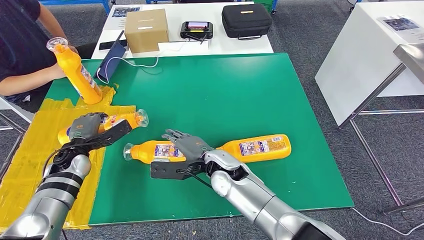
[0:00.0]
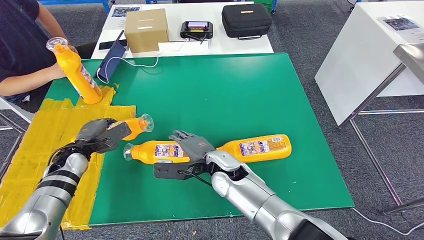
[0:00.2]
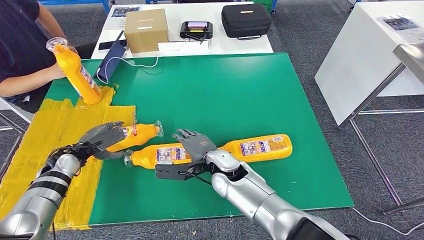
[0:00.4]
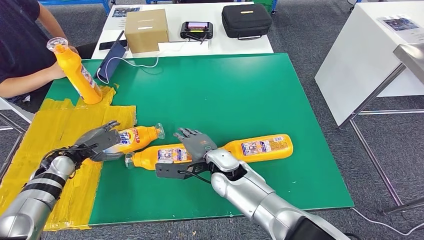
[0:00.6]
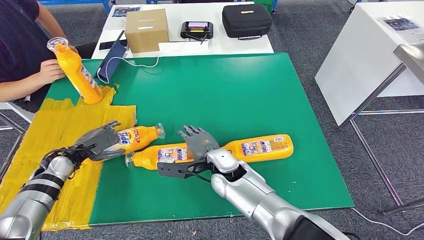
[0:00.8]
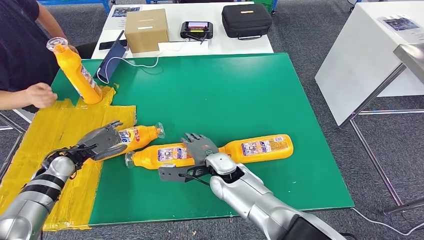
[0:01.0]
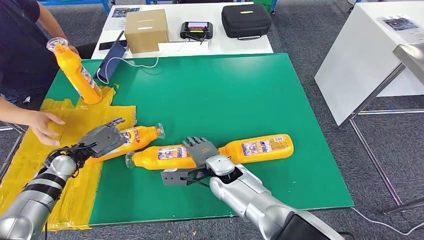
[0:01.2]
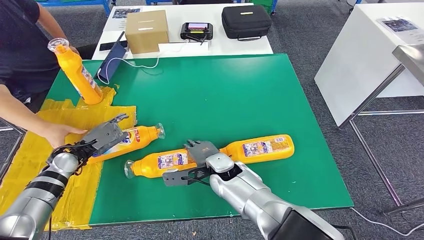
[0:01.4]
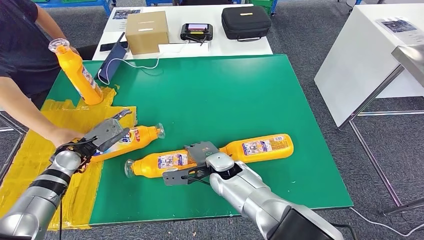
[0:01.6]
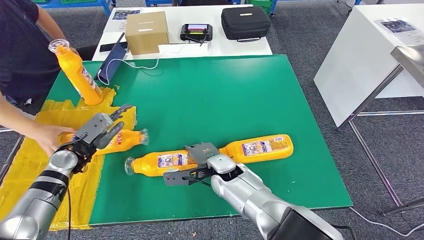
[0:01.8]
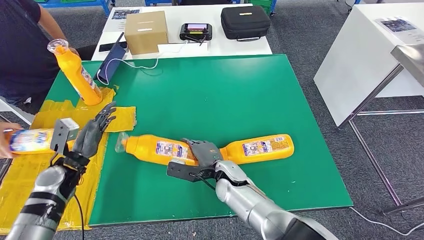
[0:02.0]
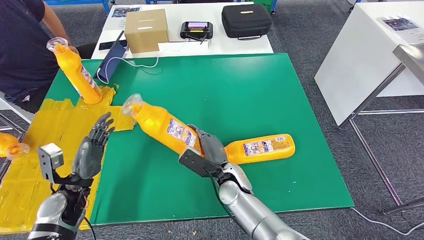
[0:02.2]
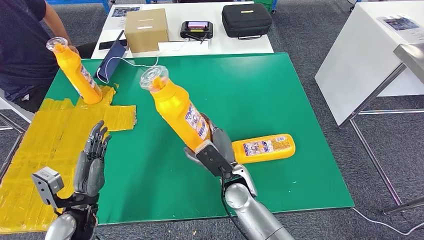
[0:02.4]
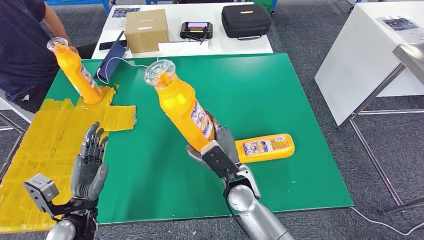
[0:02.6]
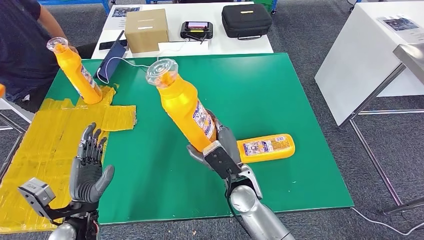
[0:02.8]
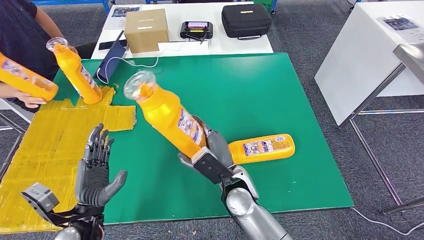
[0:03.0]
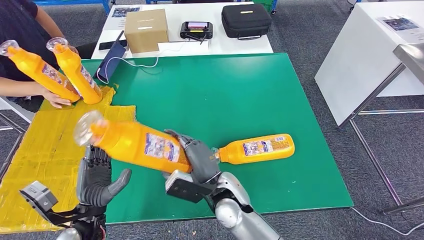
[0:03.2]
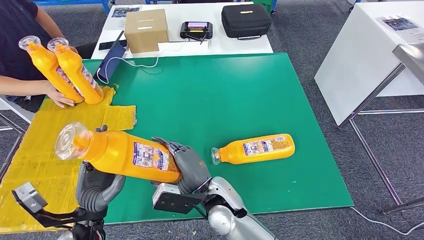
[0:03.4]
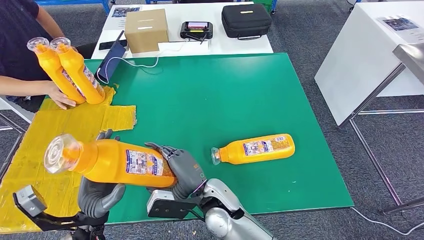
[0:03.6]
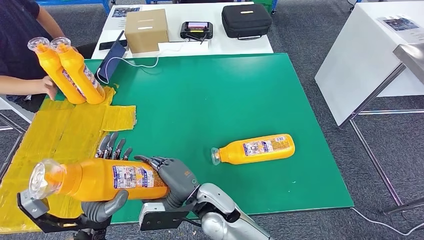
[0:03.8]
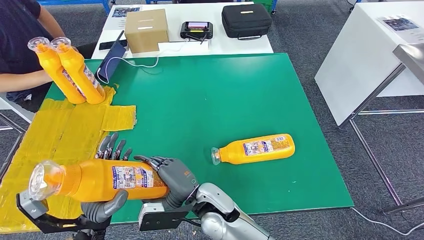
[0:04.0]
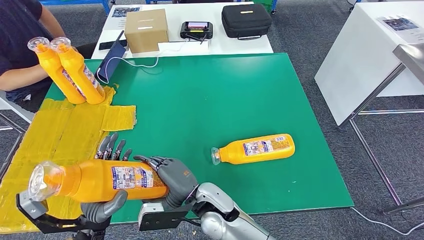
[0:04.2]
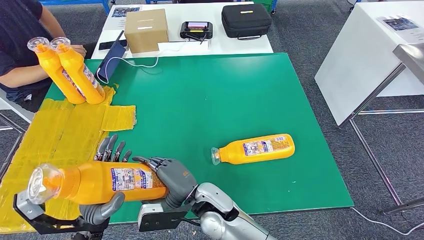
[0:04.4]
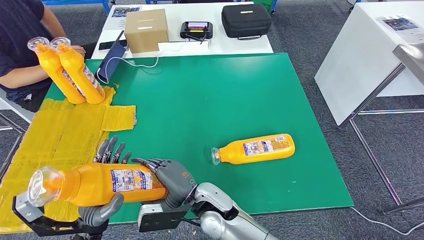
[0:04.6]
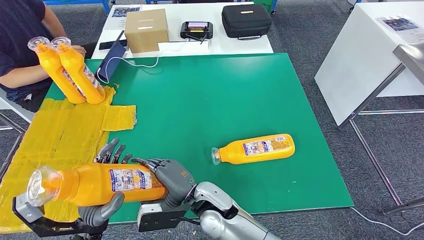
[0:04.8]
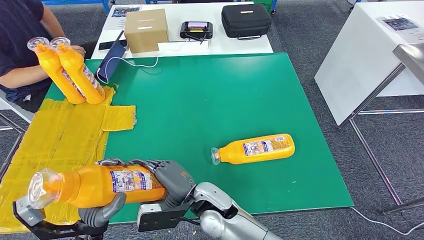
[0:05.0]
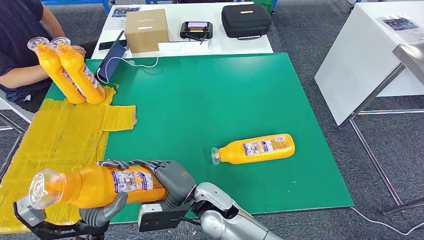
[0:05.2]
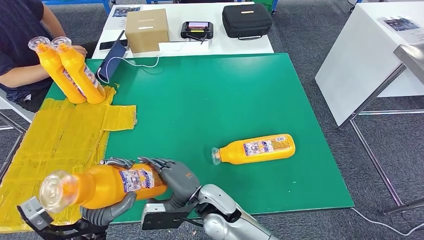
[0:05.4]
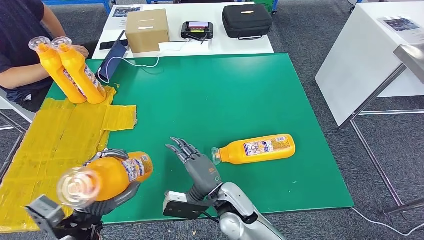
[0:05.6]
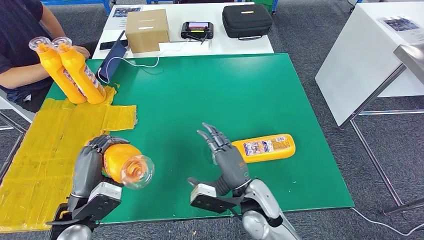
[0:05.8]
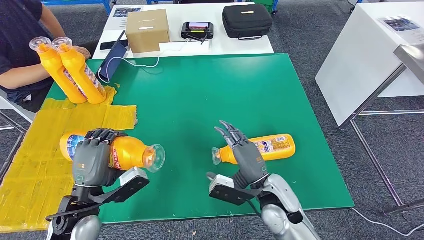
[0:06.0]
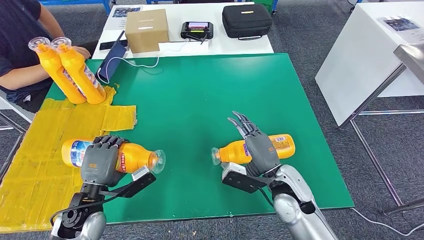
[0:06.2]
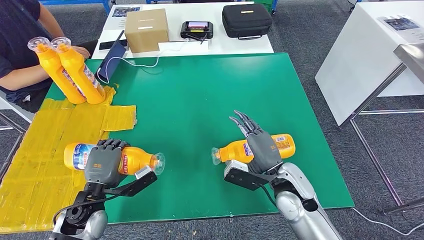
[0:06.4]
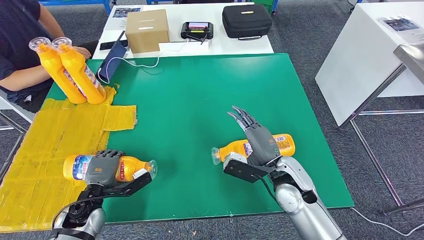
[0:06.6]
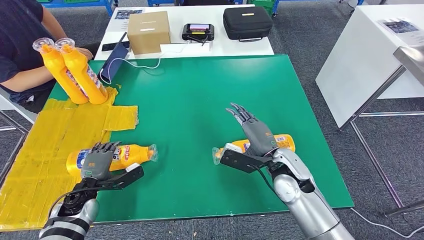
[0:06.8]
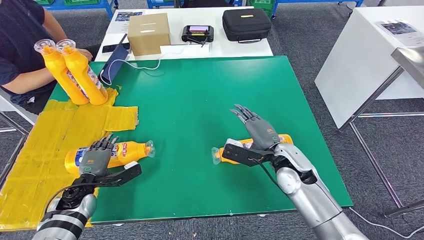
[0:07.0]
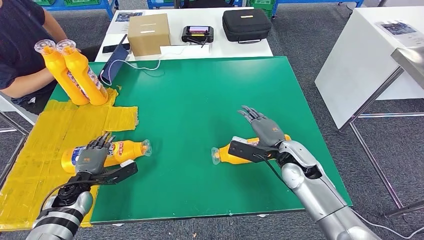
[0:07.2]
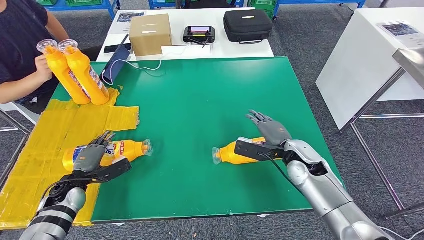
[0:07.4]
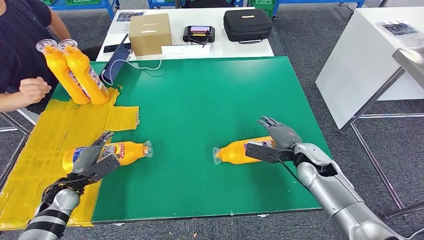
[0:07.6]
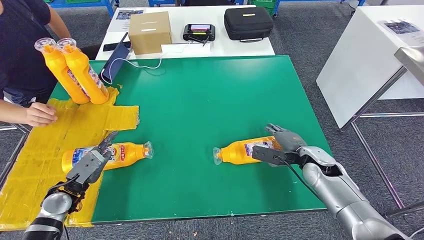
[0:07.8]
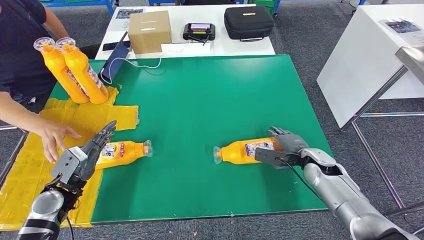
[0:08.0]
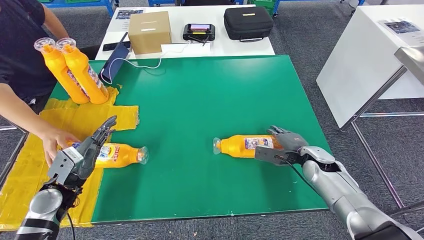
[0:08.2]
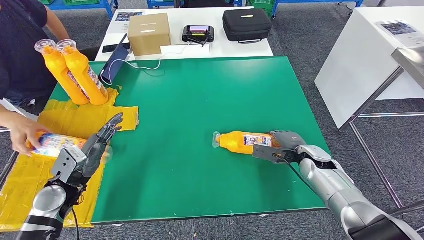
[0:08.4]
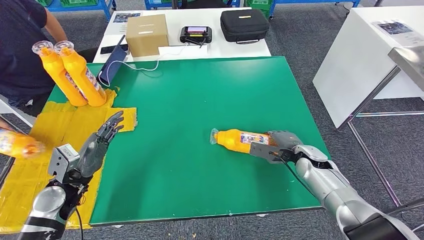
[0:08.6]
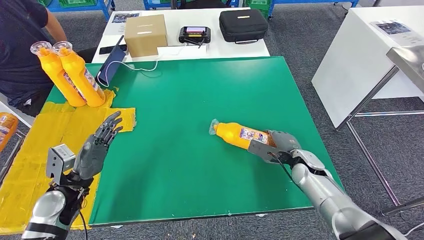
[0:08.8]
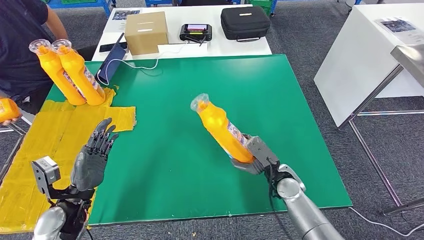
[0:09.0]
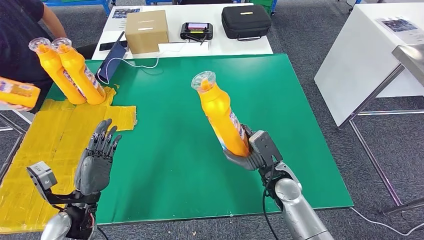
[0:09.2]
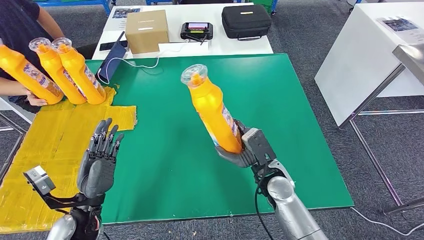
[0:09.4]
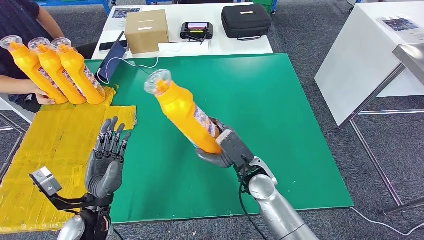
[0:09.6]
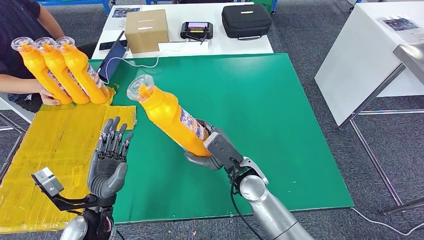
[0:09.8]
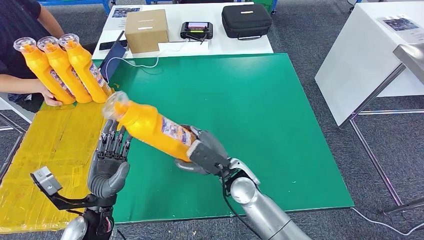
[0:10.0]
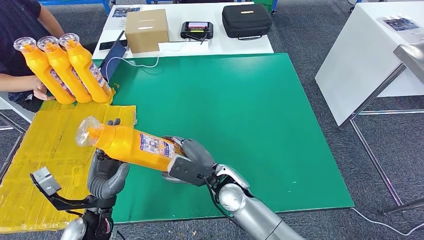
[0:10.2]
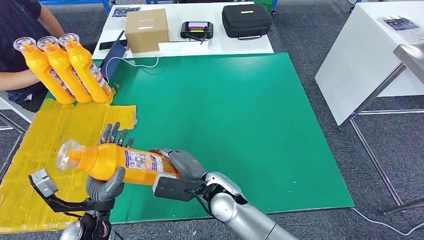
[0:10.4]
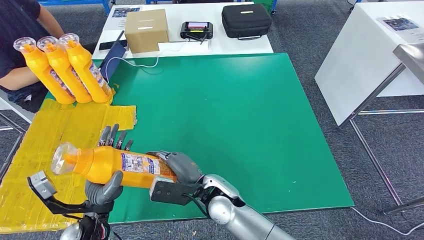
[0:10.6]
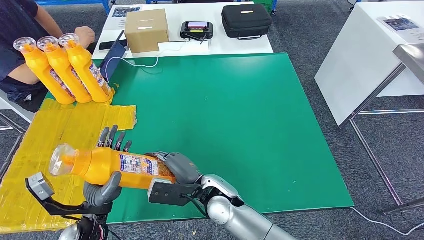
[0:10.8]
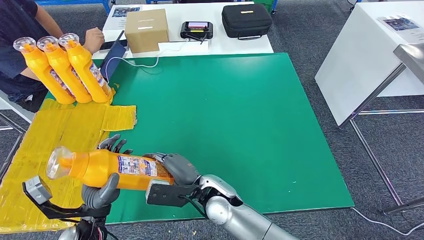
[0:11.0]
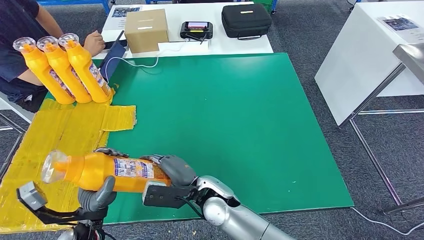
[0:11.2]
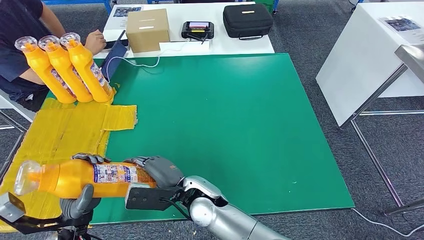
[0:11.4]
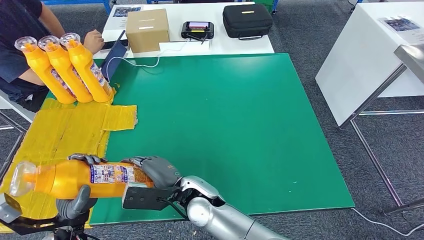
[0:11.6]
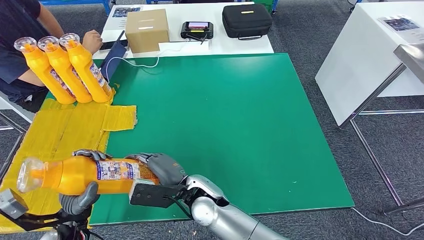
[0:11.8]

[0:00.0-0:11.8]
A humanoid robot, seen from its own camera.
Step, 0:01.8 to 0:03.2: Pick up the fast-moving consumer goods bottle from the table.
Step, 0:04.2 to 0:07.8: Flip the fast-moving consumer goods bottle to the front side.
Step, 0:08.0 to 0:09.8: Pick up the fast-moving consumer goods bottle from the table.
0:10.4 to 0:11.8: The left hand goes some 5 cm to the left.

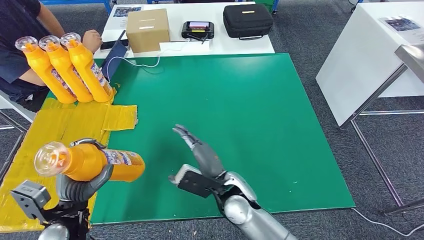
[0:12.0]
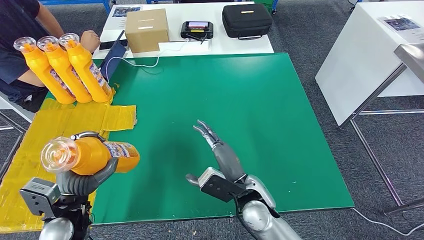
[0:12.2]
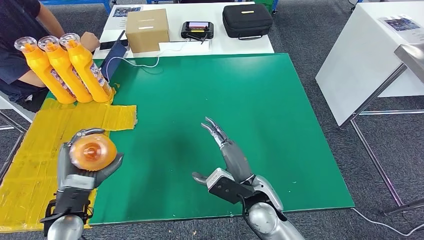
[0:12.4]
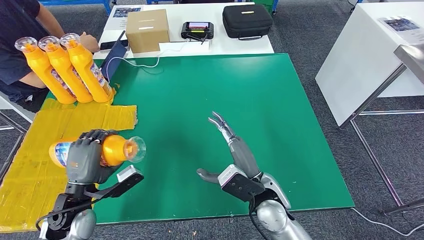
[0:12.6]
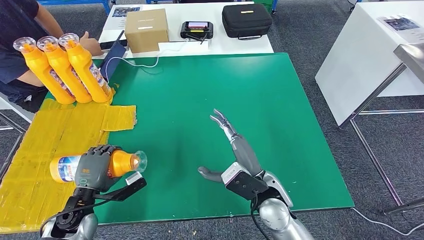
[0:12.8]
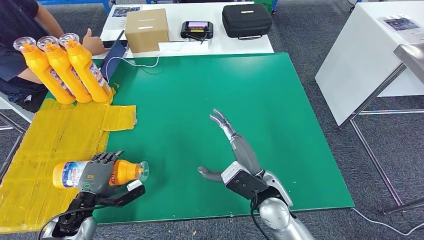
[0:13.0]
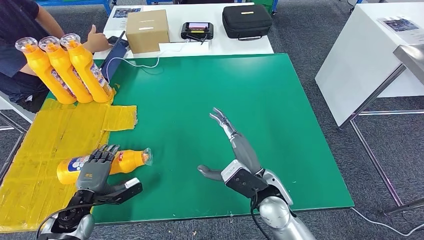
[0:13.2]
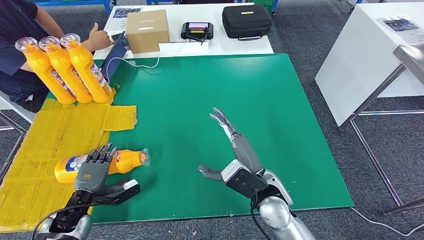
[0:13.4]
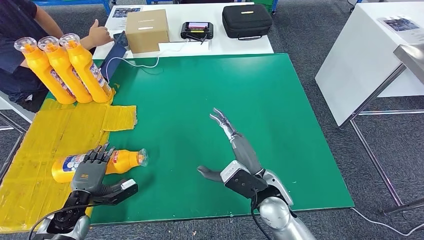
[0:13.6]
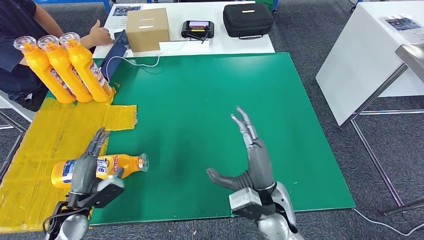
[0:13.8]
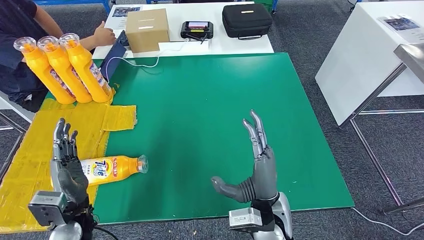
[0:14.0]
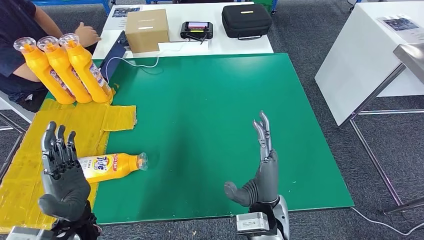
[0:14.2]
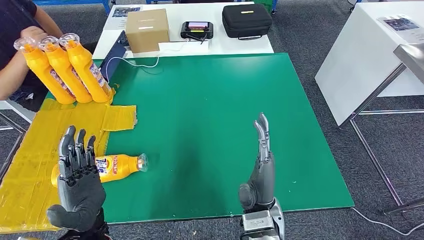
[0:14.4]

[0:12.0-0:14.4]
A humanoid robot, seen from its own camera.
Step, 0:12.0 to 0:14.2: Flip the fast-moving consumer goods bottle to the front side.
0:12.0 to 0:13.2: The left hand is displaced downward by approximately 10 cm; the right hand goes some 10 cm to the right.
0:13.2 to 0:14.4: The right hand travels backward by roughly 5 cm; the left hand goes some 15 cm to the right, upward and backward.
